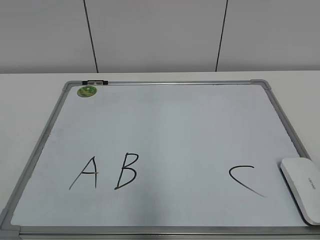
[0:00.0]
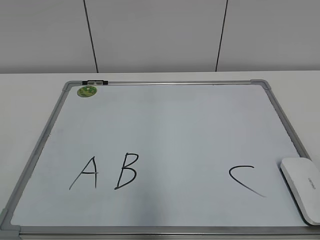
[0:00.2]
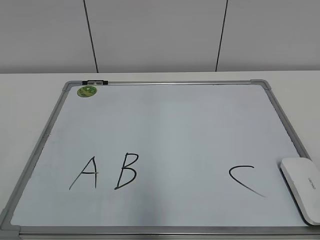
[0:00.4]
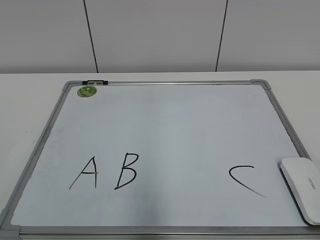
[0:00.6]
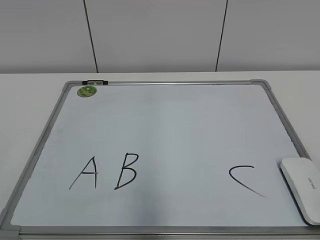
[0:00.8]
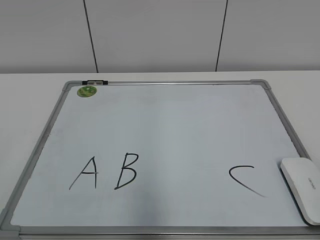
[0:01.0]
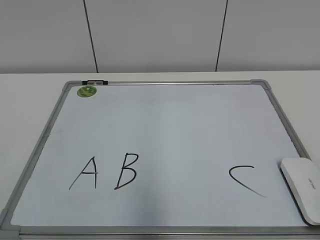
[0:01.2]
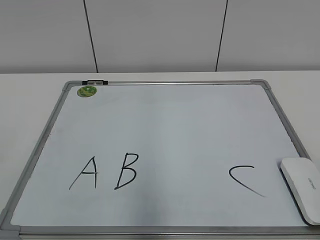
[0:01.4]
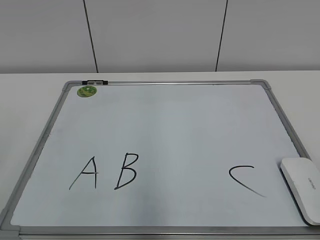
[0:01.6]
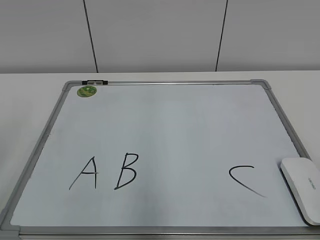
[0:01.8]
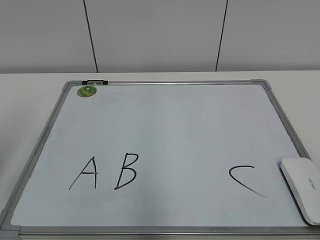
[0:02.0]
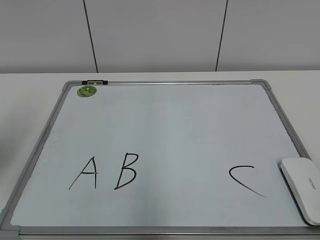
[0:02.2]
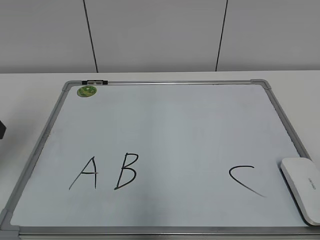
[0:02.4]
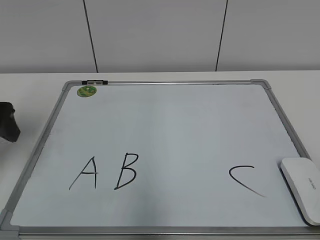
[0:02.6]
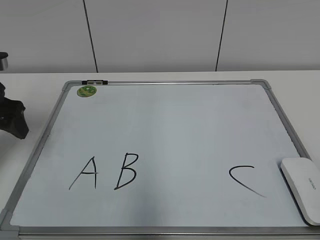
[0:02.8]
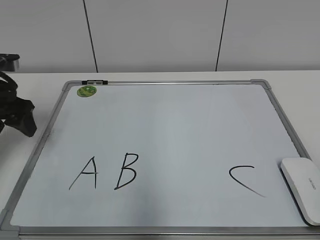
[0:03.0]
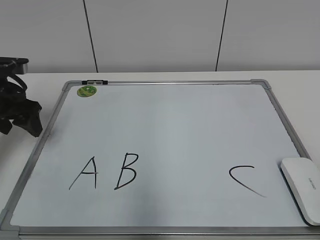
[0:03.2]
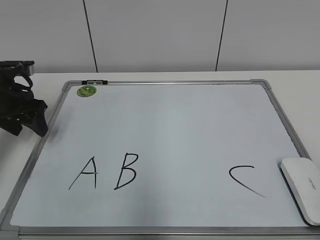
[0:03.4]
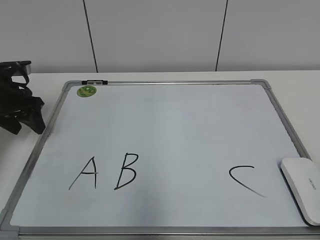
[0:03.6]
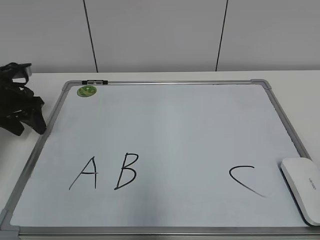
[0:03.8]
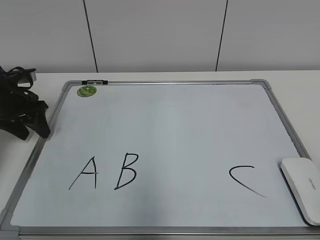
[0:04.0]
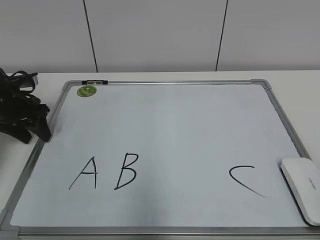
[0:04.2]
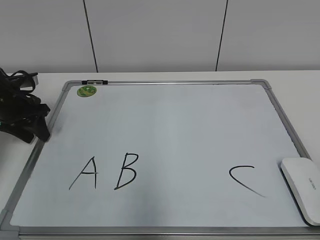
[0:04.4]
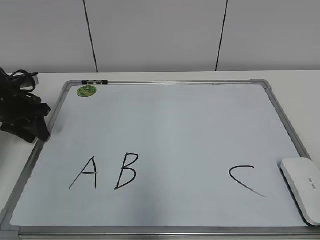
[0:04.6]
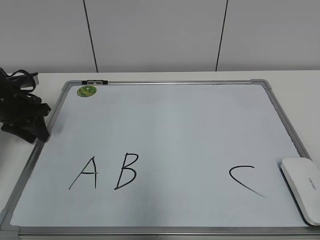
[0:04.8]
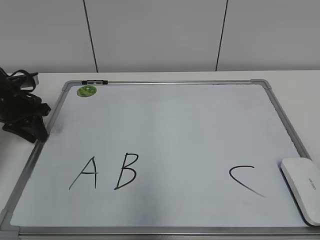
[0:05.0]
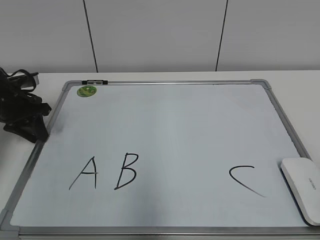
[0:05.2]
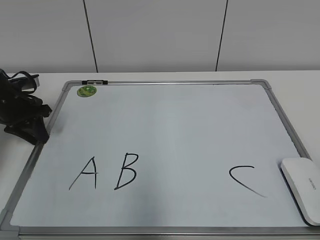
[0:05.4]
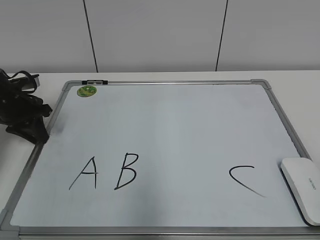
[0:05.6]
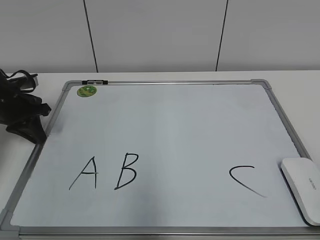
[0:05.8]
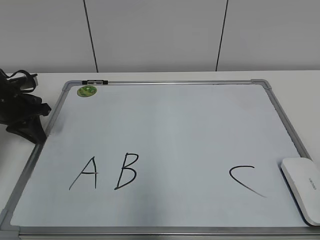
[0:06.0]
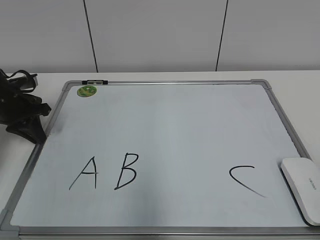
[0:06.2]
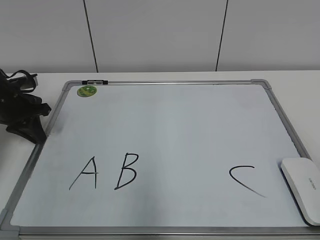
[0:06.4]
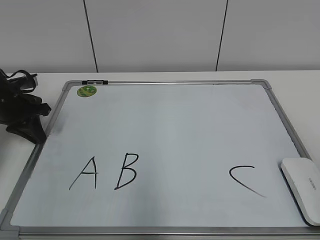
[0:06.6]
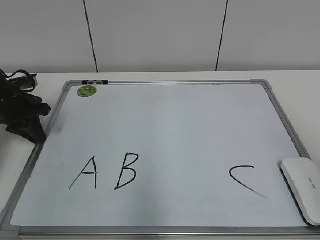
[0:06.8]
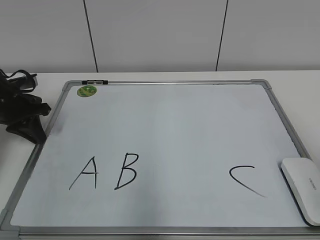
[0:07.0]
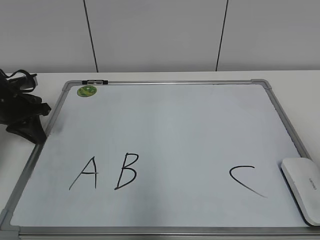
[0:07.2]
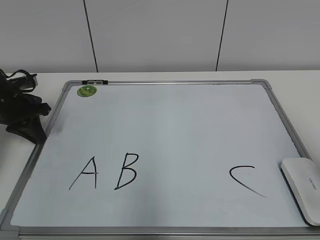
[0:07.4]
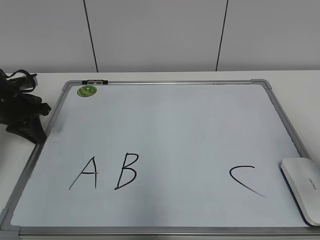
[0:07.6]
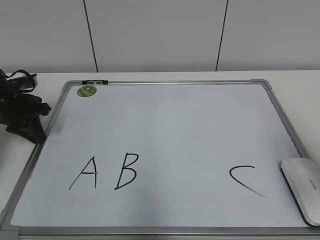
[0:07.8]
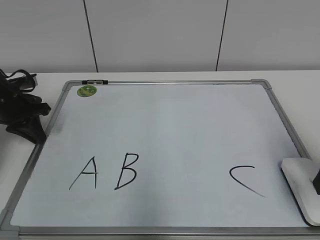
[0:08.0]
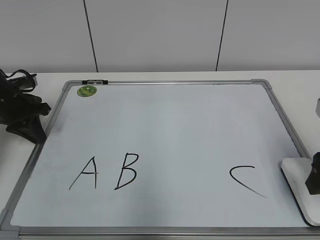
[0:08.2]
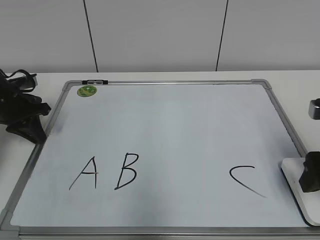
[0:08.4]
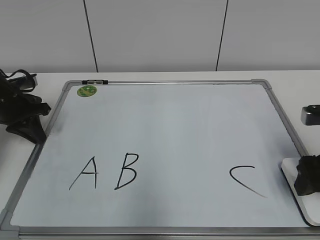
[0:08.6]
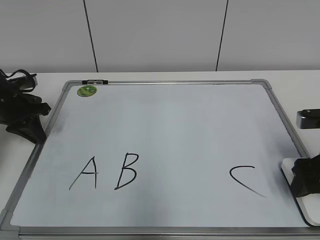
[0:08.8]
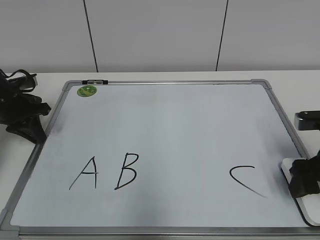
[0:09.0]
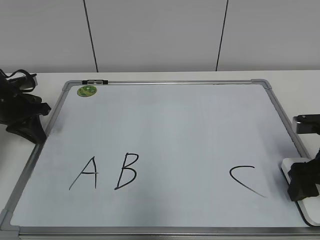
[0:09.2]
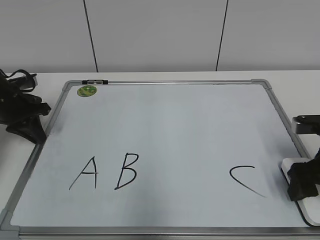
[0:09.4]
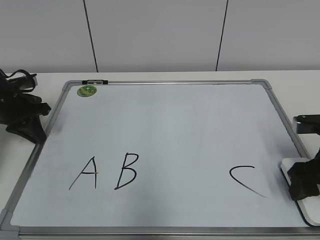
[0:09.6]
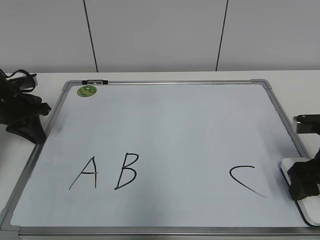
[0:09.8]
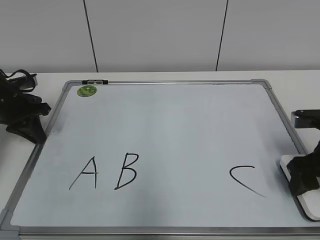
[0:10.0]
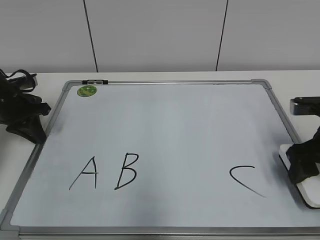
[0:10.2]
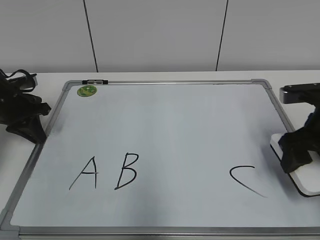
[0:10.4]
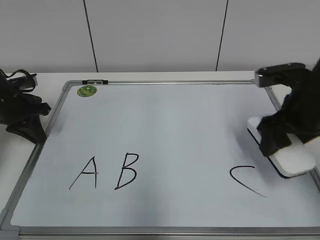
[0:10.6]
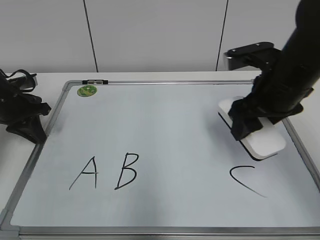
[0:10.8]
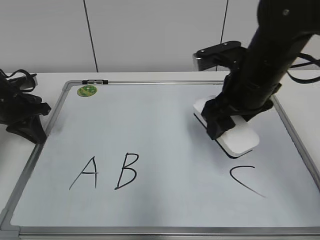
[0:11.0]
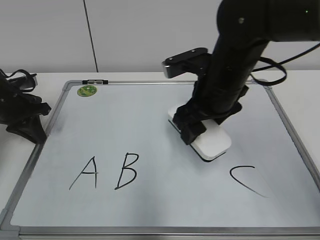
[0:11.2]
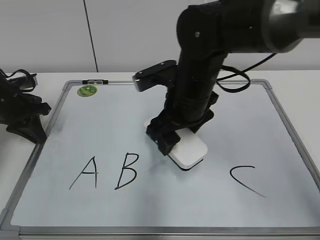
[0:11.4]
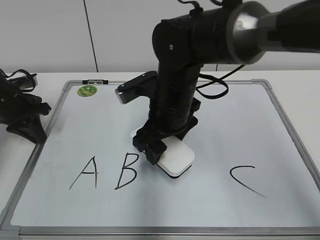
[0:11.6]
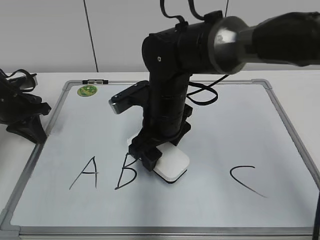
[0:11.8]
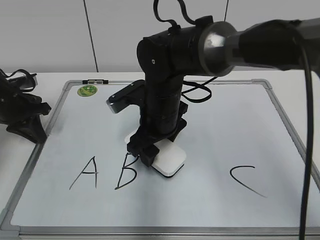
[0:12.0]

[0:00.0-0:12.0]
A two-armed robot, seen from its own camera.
Task of the whole recording: pick up the eraser on the blackboard and erase the letter "B".
Step, 0:00.0 to 0:05.6: Hold the drawing board steady with your left hand.
Step, 0:05.8 to 0:09.6: Grab the eraser with your right hand.
0:01.6 to 0:03.0: The left gripper heads forward, covering roughly 30 cm.
0:03.0 to 0:04.4: The left gripper goes approximately 10 cm downward and forward.
0:04.4 to 0:06.0: The left gripper closes its fingers.
0:06.0 to 0:07.6: The right gripper goes approximately 20 cm forward.
0:07.6 to 0:09.0: The right gripper moves downward and forward, roughly 15 cm.
0:09.0 to 0:10.4: There are only small adjustments of the grippers.
0:10.4 to 0:12.0: The right gripper is displaced to the left by roughly 25 cm.

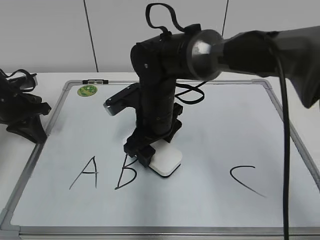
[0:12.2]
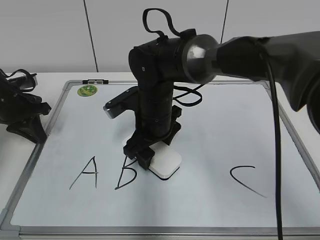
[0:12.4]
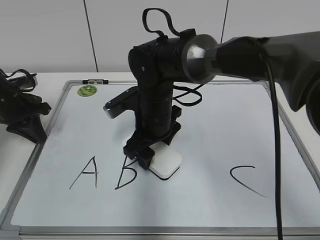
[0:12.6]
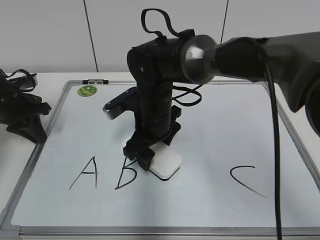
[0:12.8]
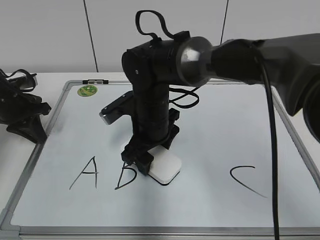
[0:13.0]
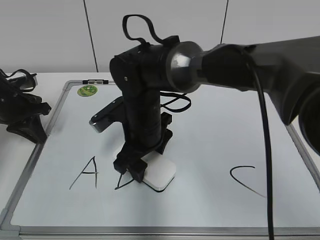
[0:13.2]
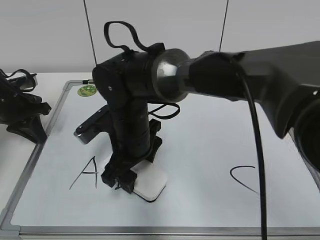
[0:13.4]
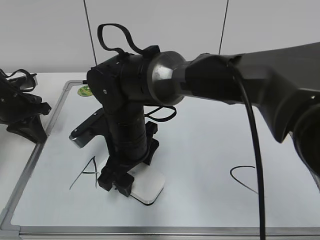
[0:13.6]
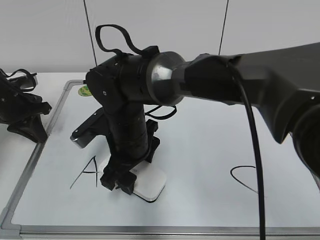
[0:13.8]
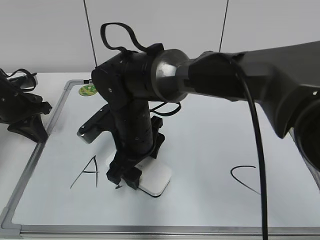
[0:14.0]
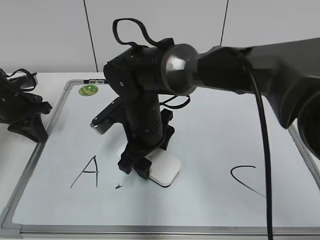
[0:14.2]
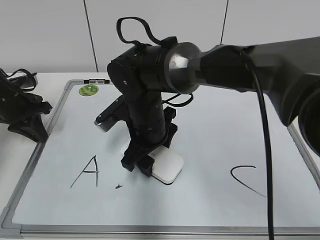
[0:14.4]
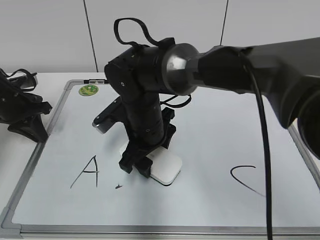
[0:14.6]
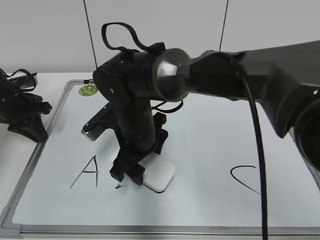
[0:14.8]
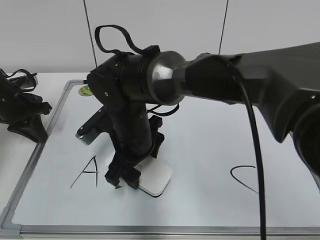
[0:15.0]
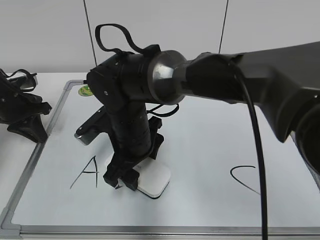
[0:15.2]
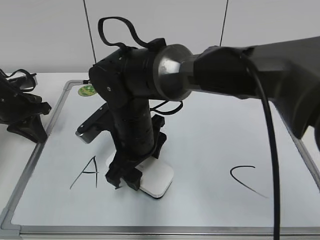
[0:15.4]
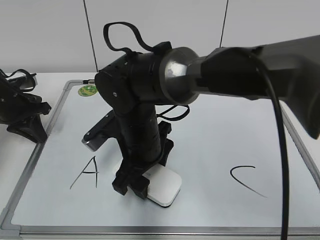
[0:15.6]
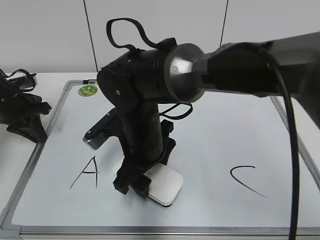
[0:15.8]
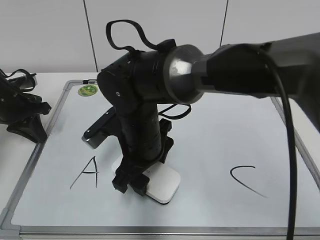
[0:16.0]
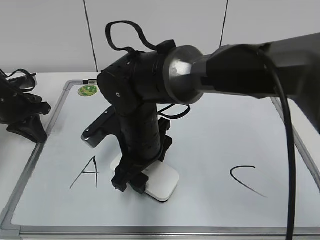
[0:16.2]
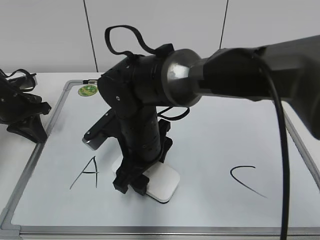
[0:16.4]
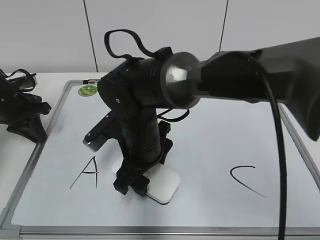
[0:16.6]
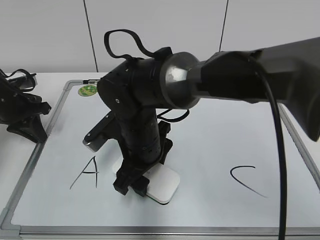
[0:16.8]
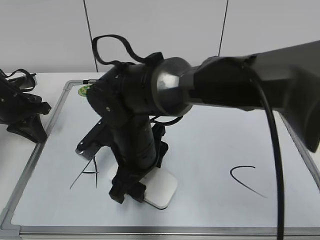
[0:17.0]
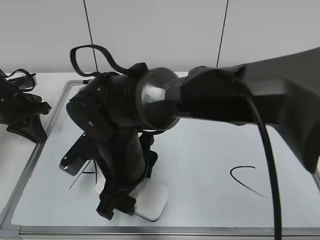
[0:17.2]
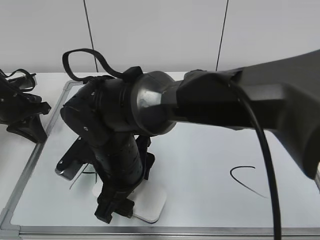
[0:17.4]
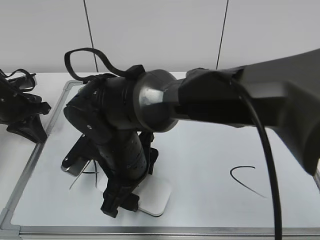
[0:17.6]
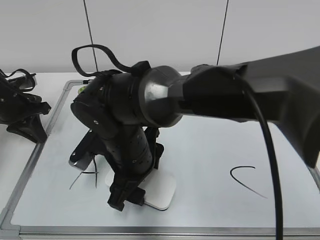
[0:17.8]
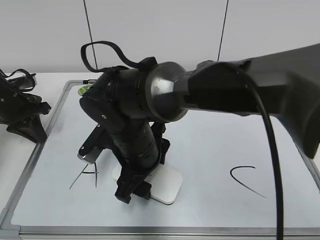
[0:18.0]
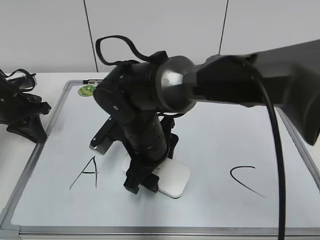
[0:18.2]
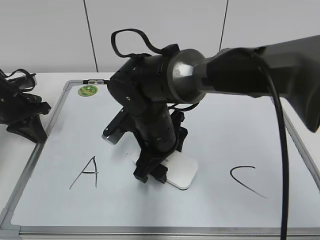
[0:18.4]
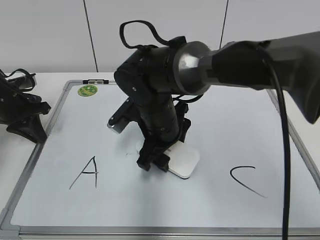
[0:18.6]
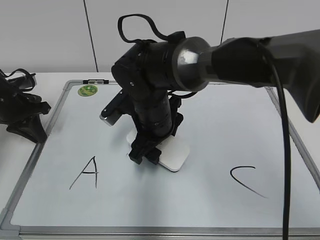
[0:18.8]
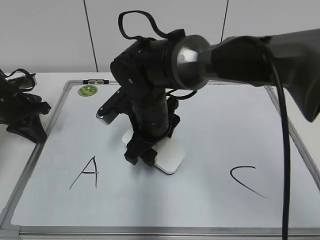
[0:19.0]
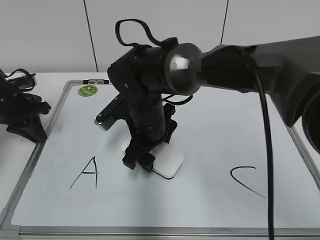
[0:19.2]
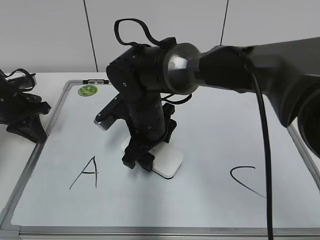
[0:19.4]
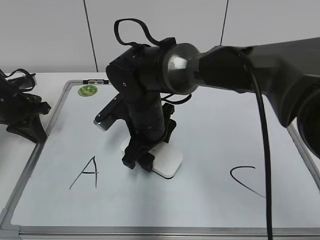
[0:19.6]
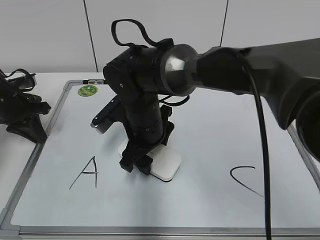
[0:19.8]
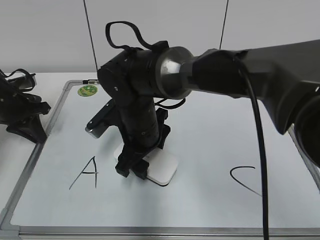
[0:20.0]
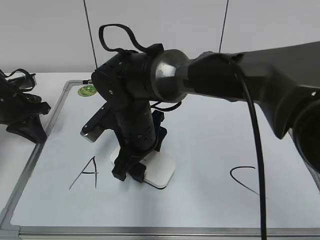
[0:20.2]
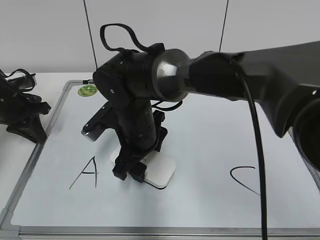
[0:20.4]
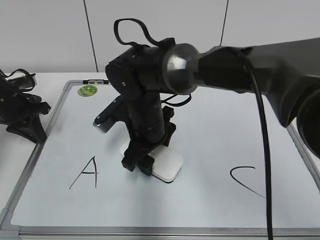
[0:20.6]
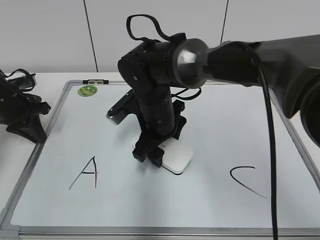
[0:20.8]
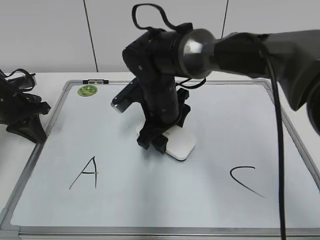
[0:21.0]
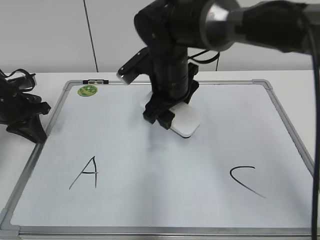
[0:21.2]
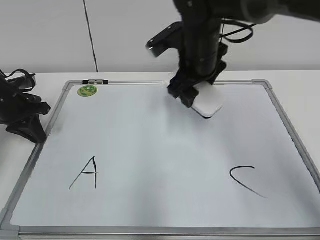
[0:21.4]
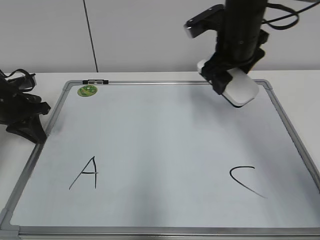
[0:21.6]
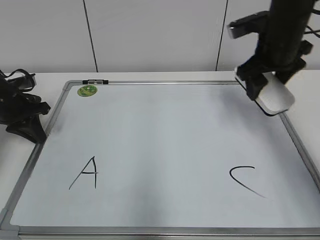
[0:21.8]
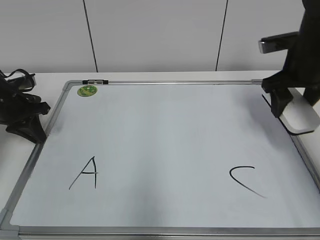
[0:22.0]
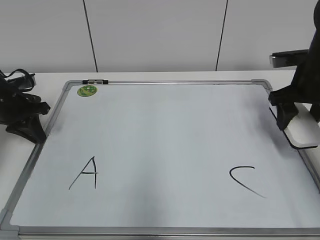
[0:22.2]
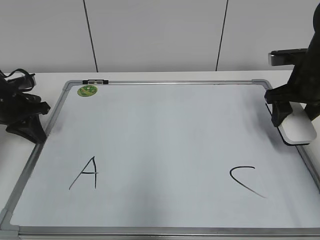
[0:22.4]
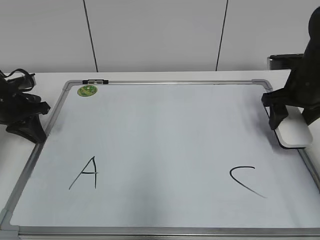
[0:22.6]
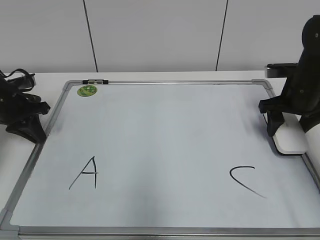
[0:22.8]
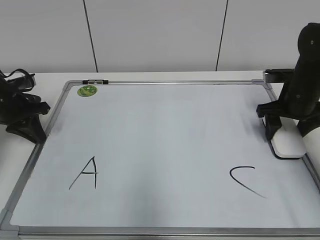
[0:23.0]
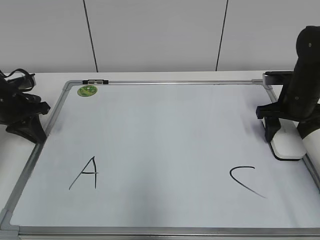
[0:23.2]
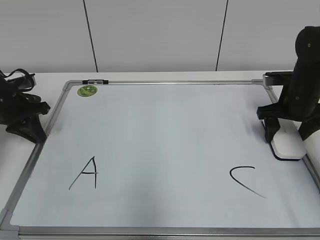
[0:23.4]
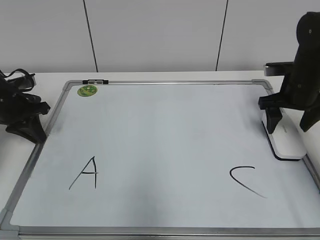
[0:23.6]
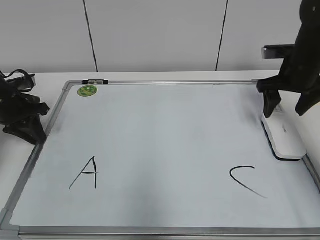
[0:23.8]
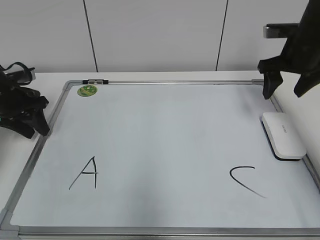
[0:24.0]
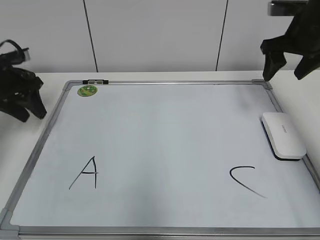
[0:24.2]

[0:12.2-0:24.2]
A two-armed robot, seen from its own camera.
Task of the whole recording: pick up the eraser on the blackboard and erase the letter "B".
Step, 0:12.2 to 0:20.8: Erase the letter B with your right hand.
Step, 0:21.2 to 0:23.4: Put down the eraser with your right hand.
0:12.2 to 0:13.8: The right gripper moves roughly 5 cm.
0:13.8 to 0:19.8: The grippers make only small movements.
0:19.8 to 0:21.2: The right gripper travels upward by roughly 5 cm.
0:21.2 to 0:22.6: The right gripper goes approximately 25 cm to the right.
0:22.6 to 0:24.2: Both grippers travel together upward, approximately 5 cm. The left gripper opens.
